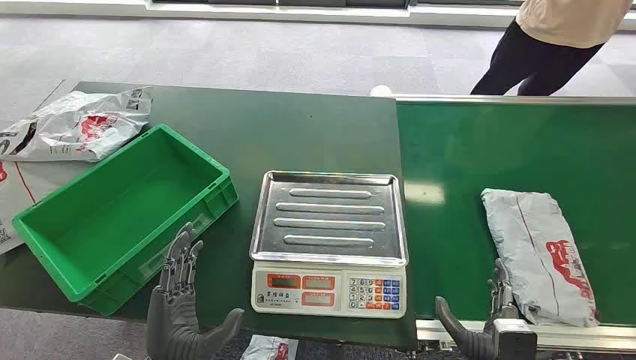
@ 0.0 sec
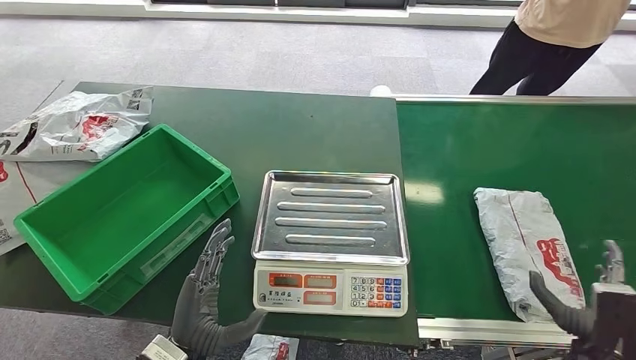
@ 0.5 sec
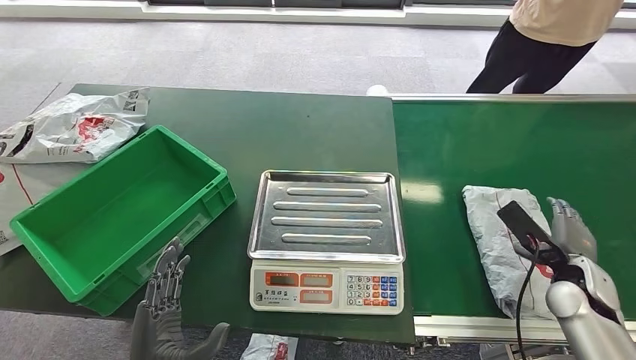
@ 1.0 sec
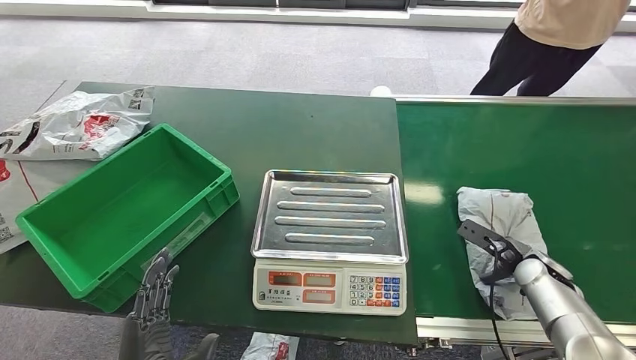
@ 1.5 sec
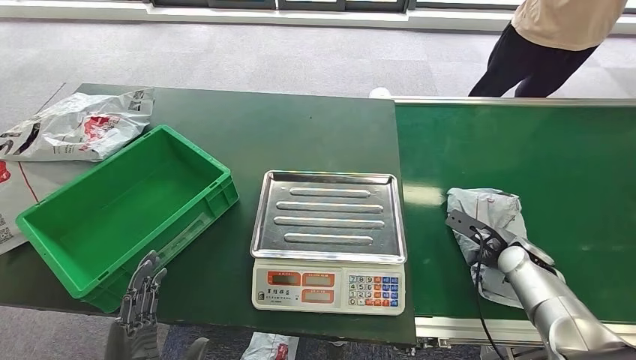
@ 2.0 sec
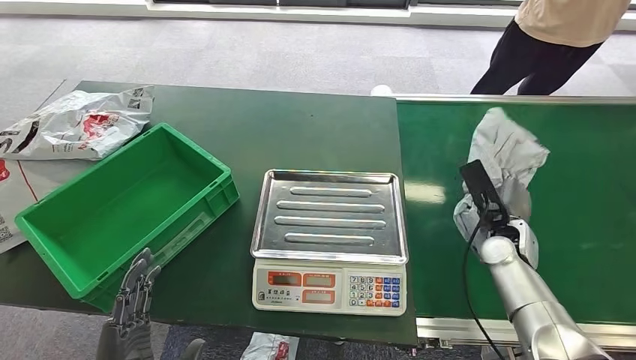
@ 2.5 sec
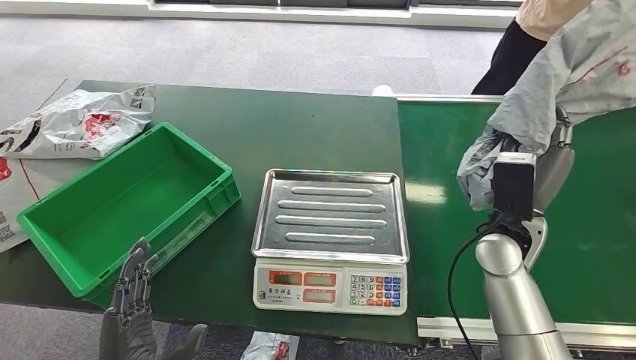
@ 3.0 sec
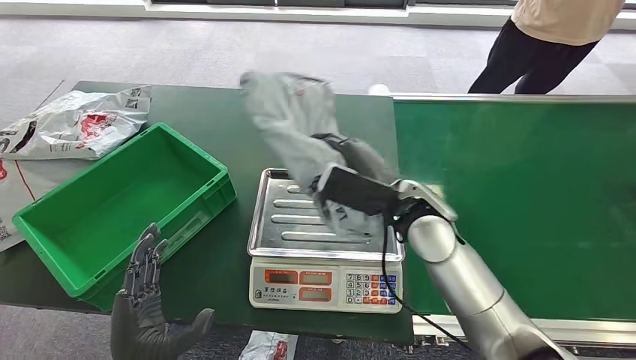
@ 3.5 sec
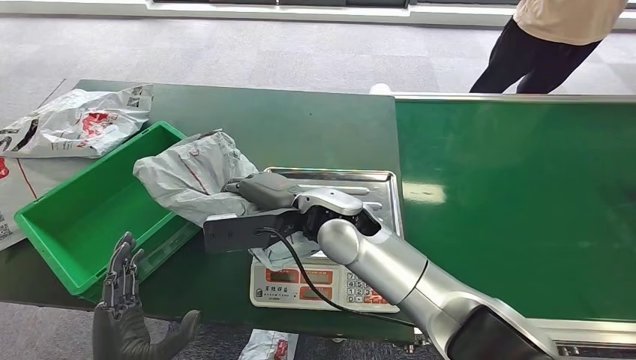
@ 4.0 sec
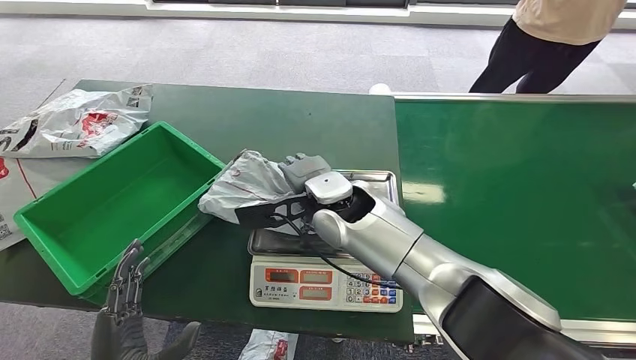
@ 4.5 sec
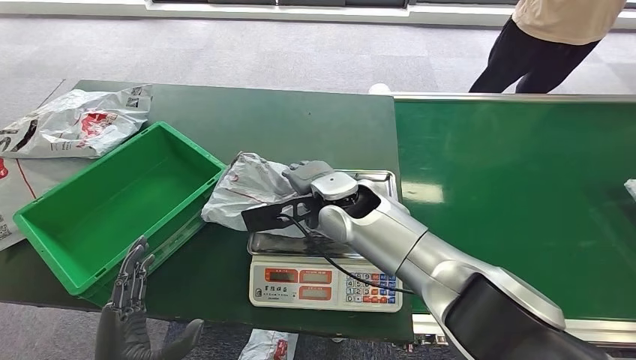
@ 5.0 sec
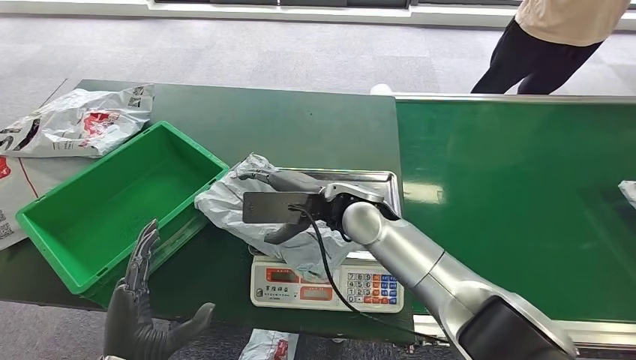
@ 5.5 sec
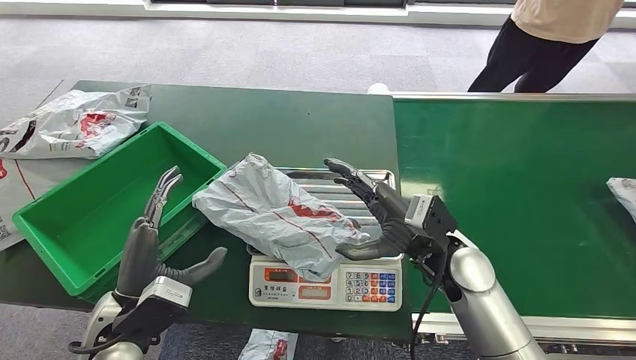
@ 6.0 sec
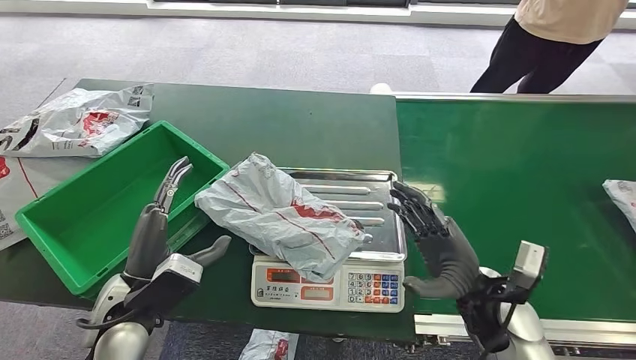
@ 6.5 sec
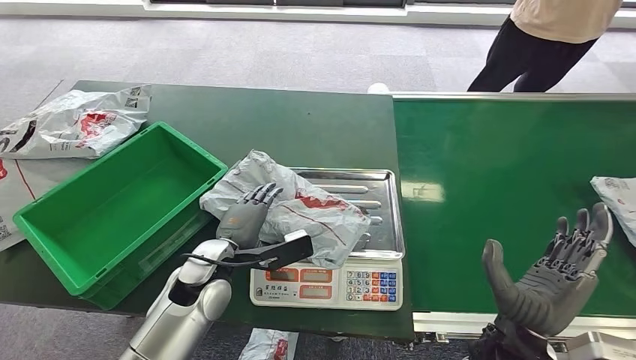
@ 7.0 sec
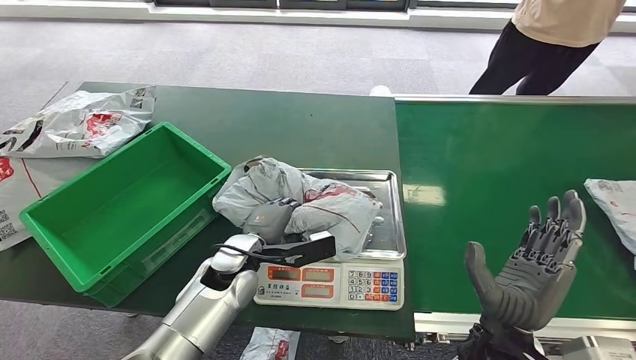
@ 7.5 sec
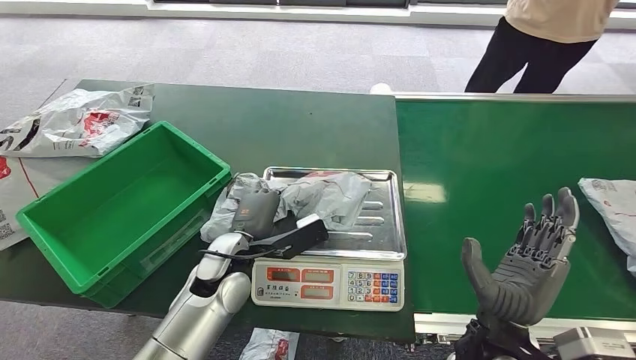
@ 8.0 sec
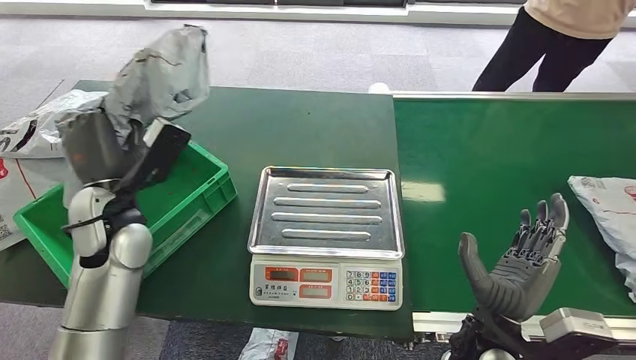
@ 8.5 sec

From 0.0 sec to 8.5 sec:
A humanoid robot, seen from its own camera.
Task of the whole recording: Weigh the package on the weighing device and place it in the left basket.
Step, from 0.0 sec to 3.0 sec: Pick up the package from the conveyor belt.
Step, from 3.5 sec to 4.0 sec: Place the package onto the inbound machine.
Step, from 4.5 sec to 8.0 sec: Pick up the package from the inbound machine.
From 4.0 sec to 6.5 sec: The right hand goes about 25 cm to the right, backward and downward, while the left hand goes some 15 cm forward and upward.
